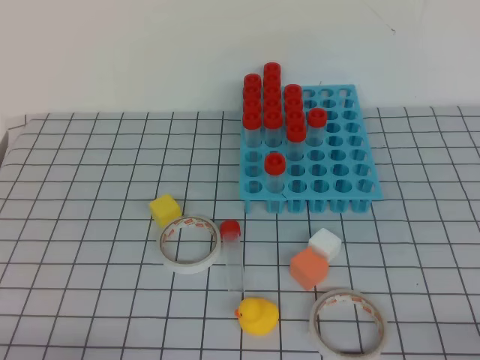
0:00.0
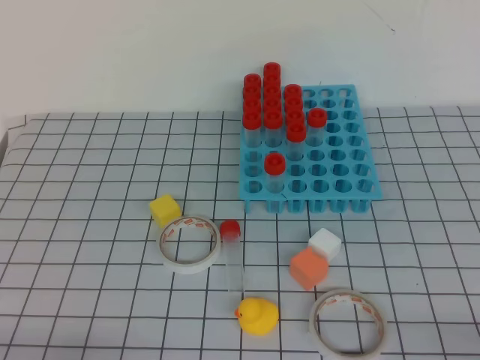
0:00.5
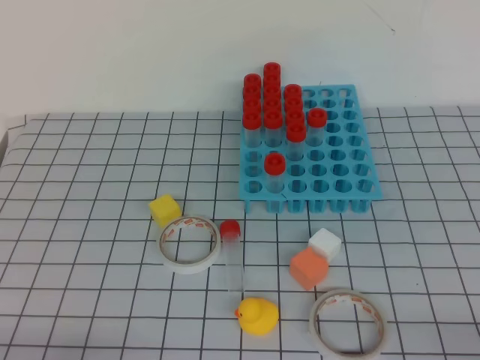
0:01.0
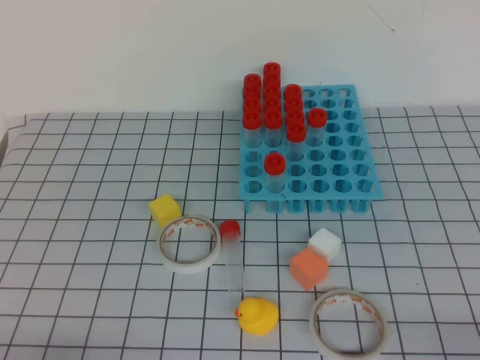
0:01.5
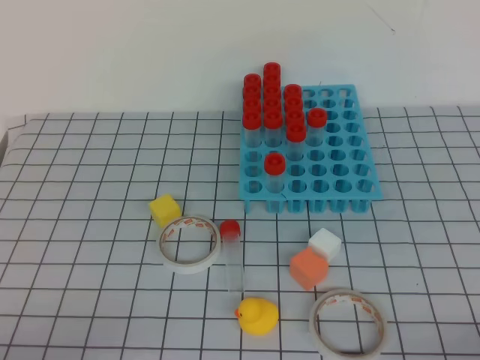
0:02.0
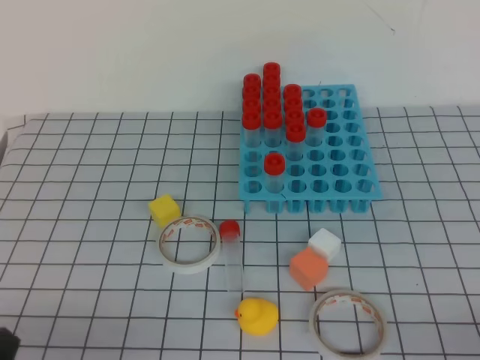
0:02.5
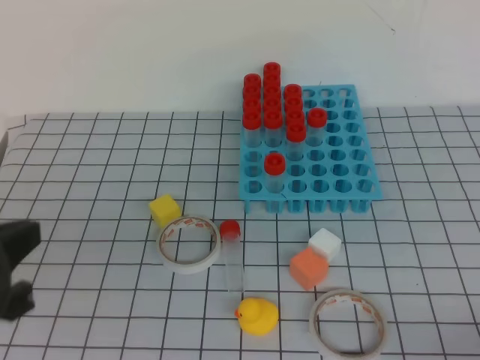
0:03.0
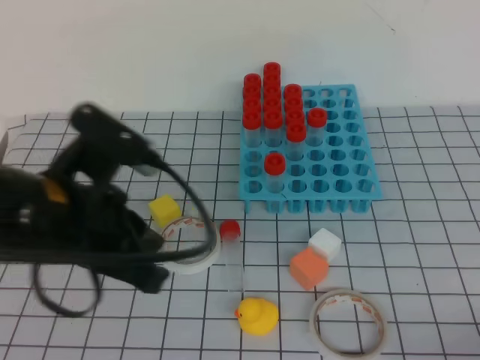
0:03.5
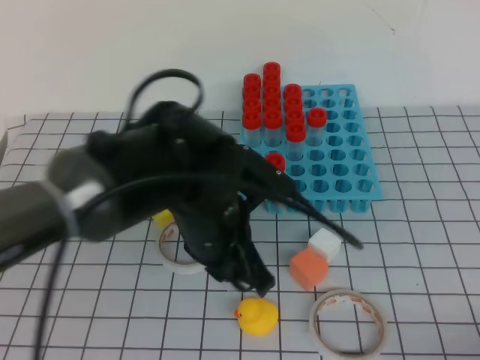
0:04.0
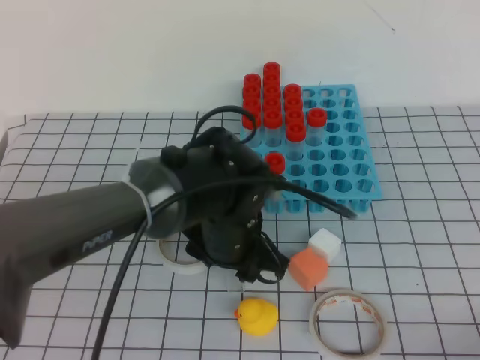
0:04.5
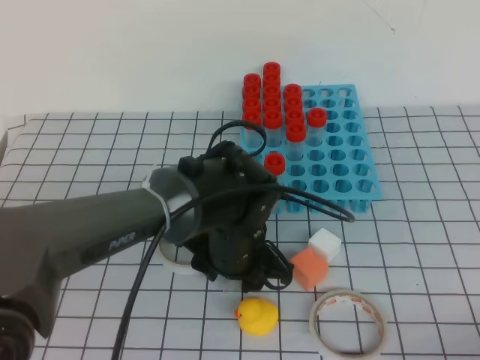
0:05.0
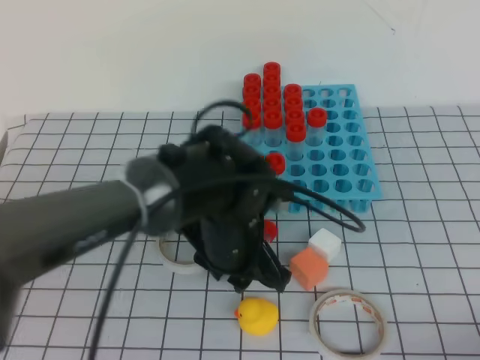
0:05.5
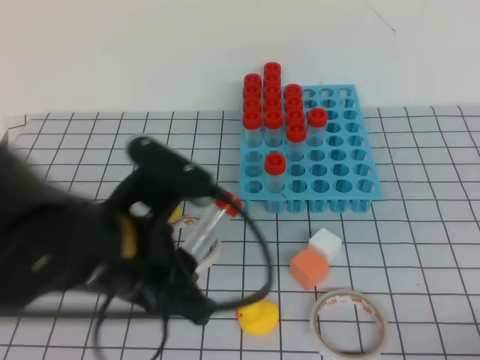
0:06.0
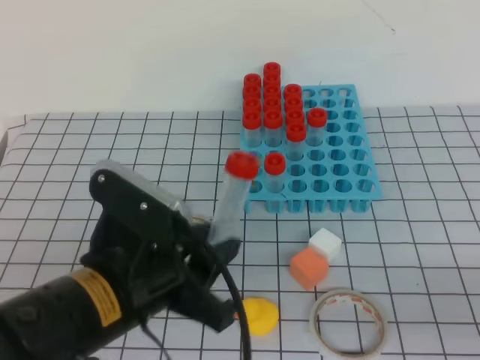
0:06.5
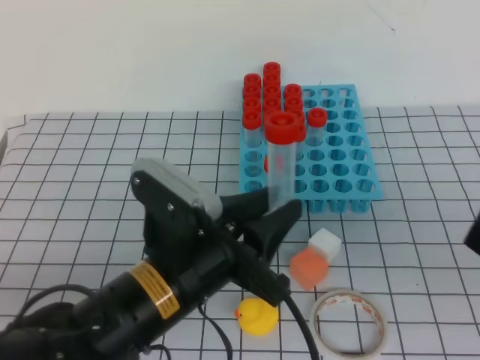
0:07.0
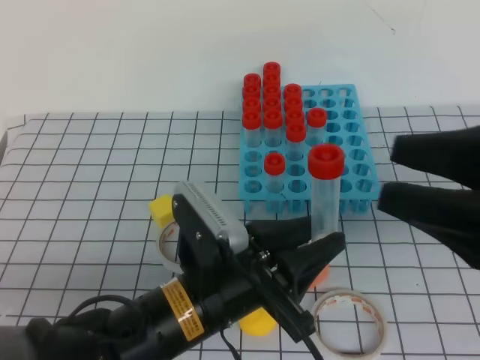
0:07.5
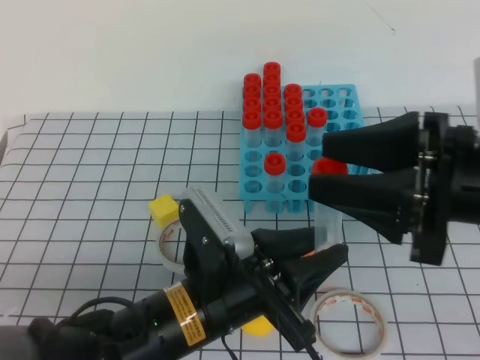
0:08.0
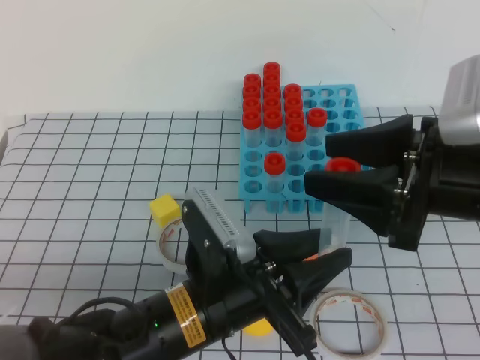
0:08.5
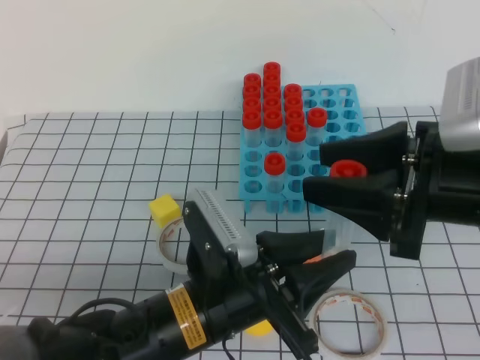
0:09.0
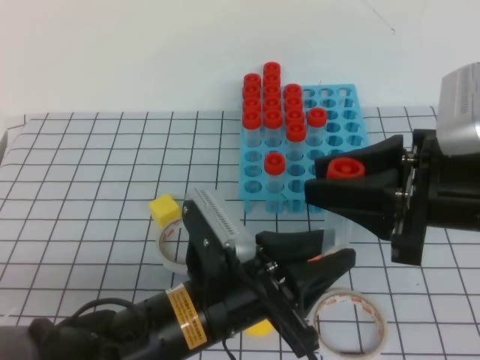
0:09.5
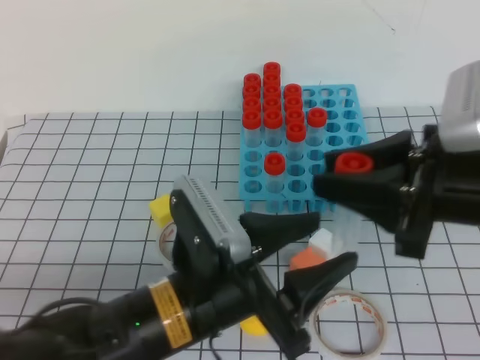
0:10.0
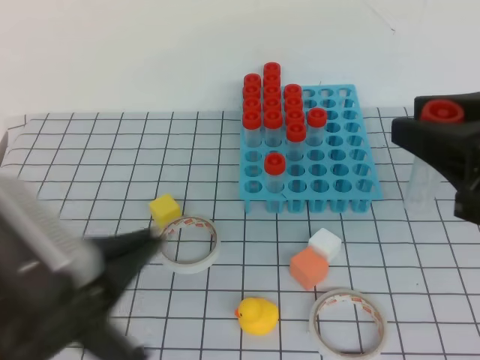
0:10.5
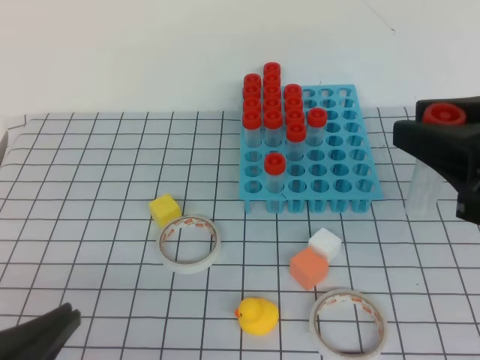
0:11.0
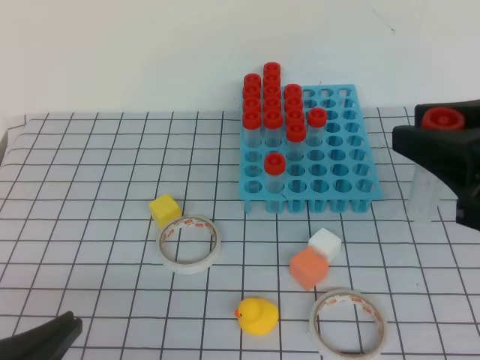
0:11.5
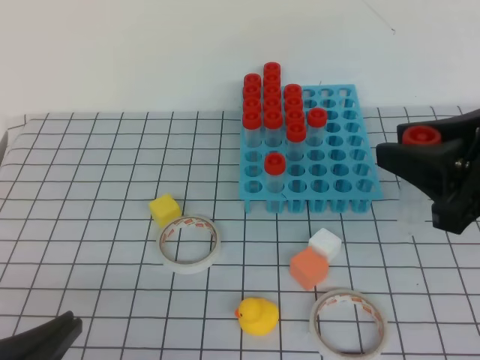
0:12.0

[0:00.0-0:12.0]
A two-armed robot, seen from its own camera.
0:02.0 to 0:04.0: The left gripper moves to the right and forward, some 30 cm.
0:04.0 to 0:06.0: The left gripper travels backward by about 5 cm, and opens, then closes again.
0:06.0 to 0:08.0: The left gripper goes roughly 10 cm downward. The right gripper goes about 25 cm forward, upward and to the left, and opens up.
0:08.0 to 0:10.0: The right gripper closes up. The left gripper opens.
0:10.0 to 0:12.0: The left gripper heads to the left and backward, covering approximately 20 cm, and closes its fingers.

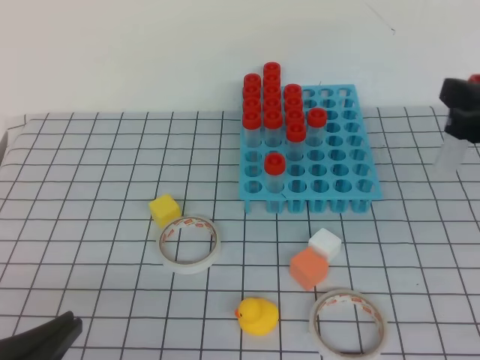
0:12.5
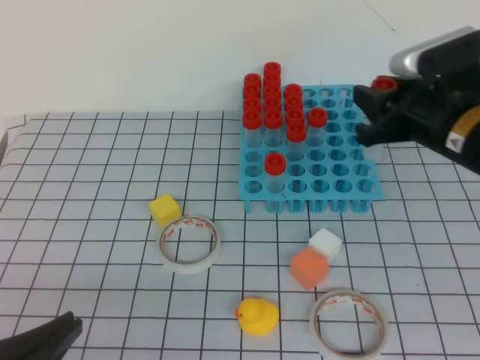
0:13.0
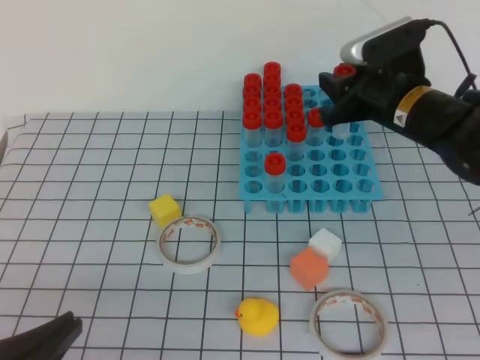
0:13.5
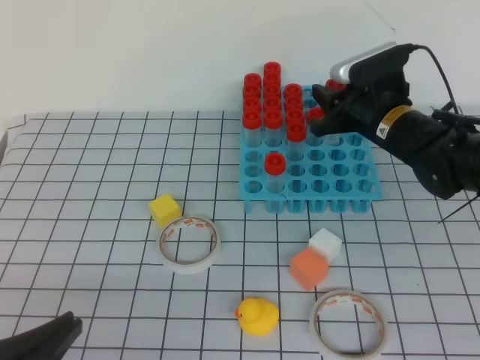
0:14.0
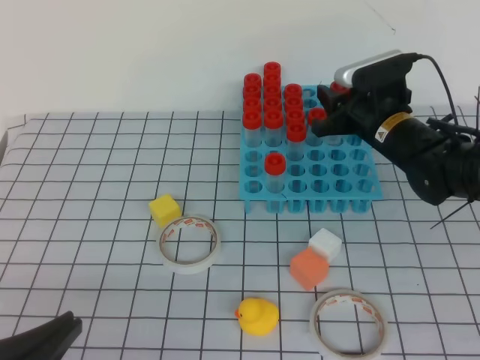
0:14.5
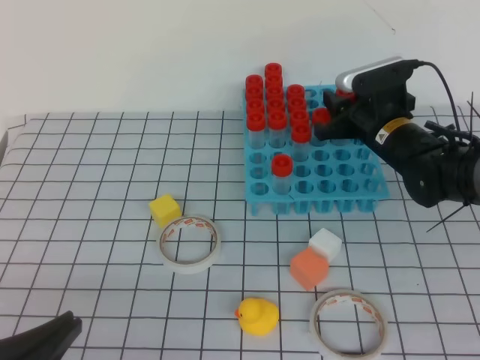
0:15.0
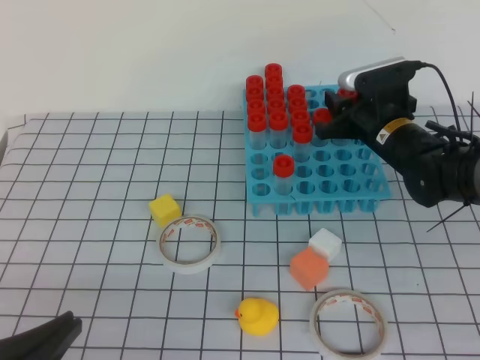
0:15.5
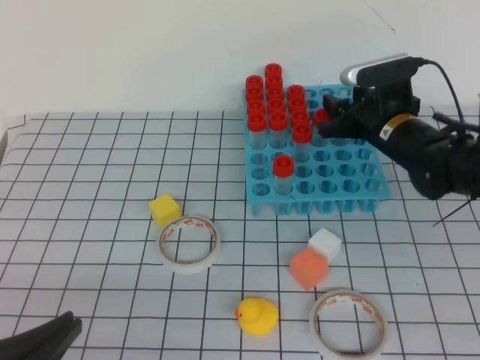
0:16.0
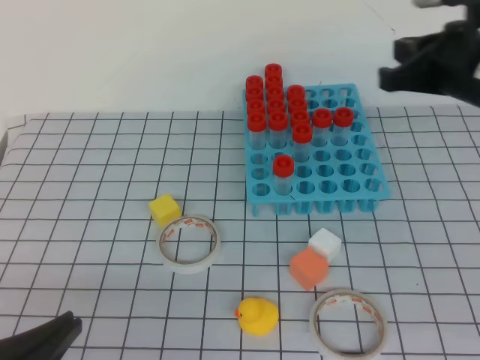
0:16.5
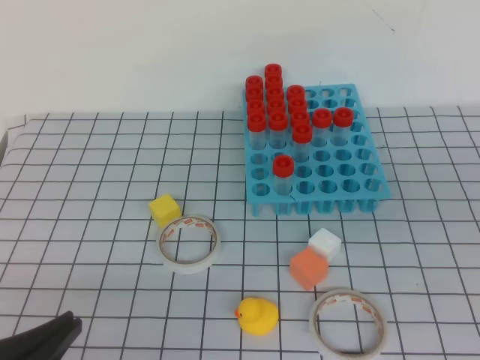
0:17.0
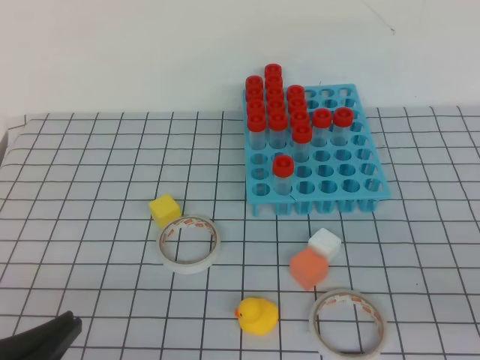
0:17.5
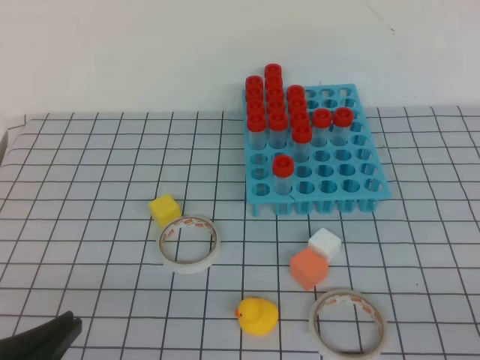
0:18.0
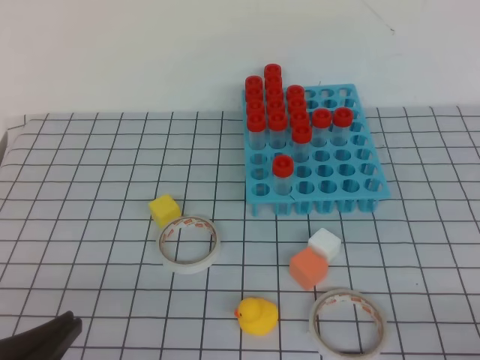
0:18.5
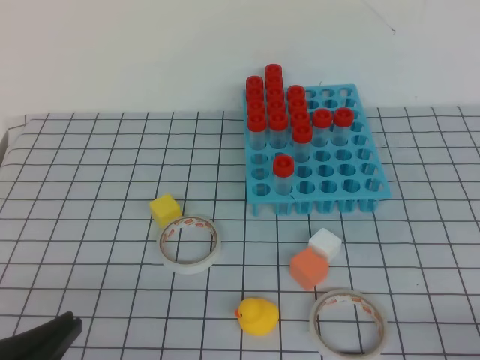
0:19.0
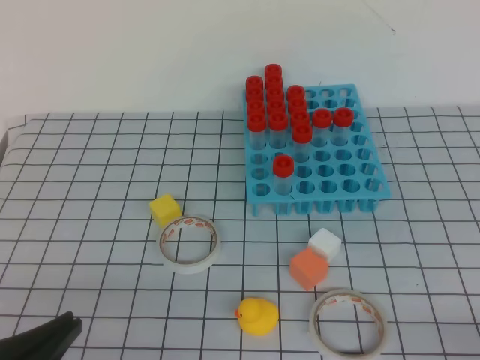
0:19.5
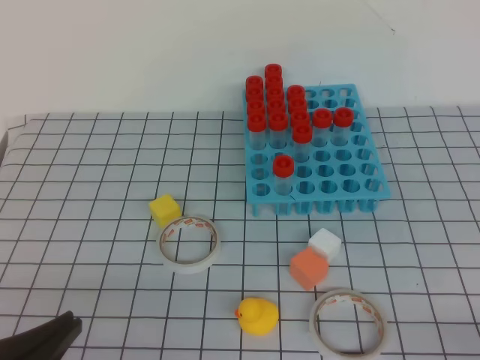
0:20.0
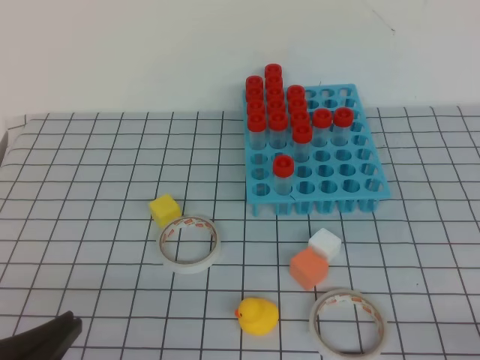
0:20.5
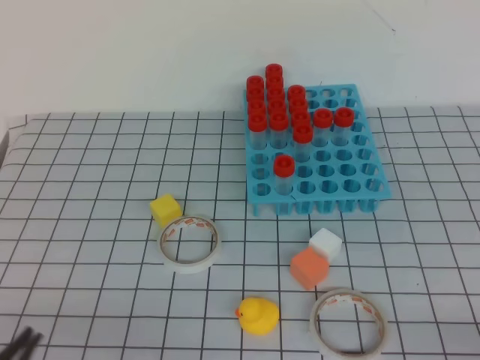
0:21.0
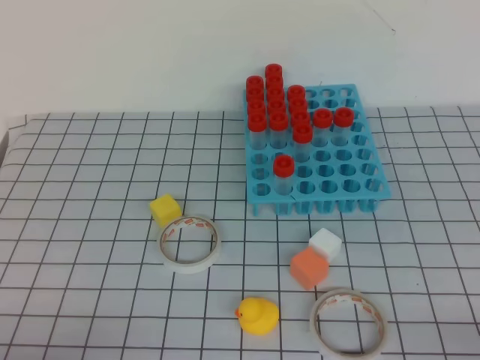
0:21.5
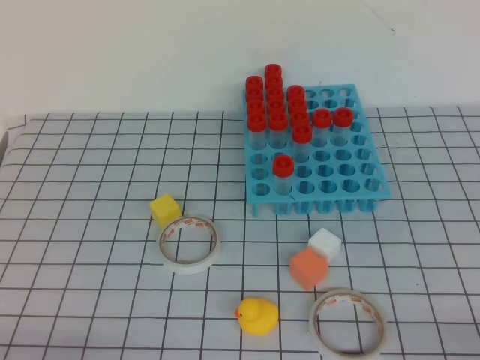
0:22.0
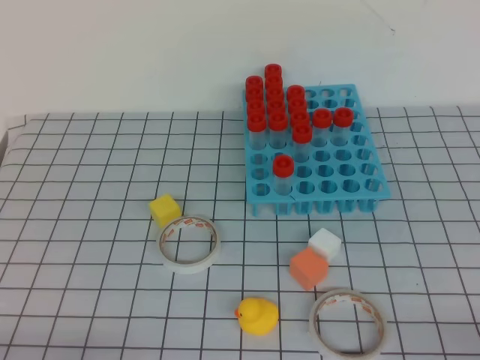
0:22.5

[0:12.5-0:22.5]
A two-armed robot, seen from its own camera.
0:12.5 to 0:14.5: The right gripper moves forward, downward and to the left, roughly 25 cm.
0:14.5 to 0:16.5: The right gripper is displaced upward and backward by approximately 15 cm, and closes its fingers.
0:16.5 to 0:18.5: The right gripper travels backward by approximately 30 cm.
0:20.5 to 0:22.5: The left gripper shifts approximately 10 cm downward.

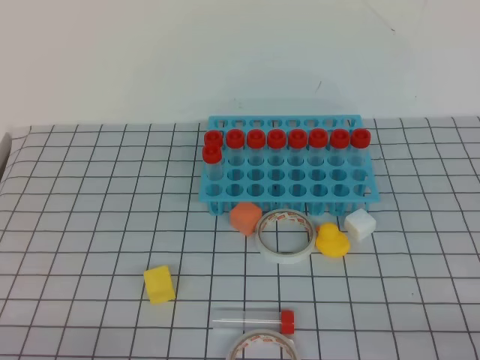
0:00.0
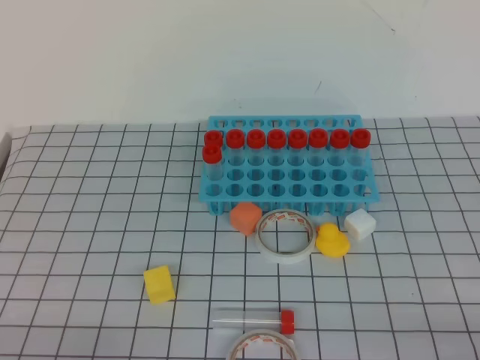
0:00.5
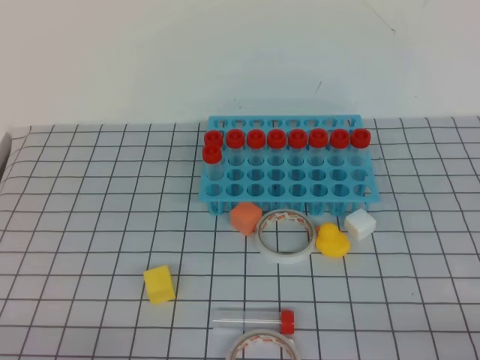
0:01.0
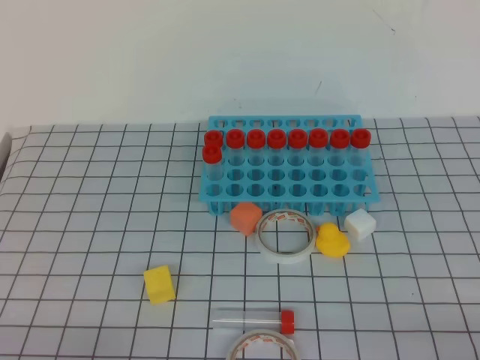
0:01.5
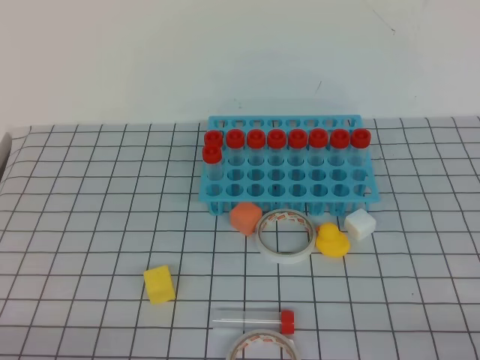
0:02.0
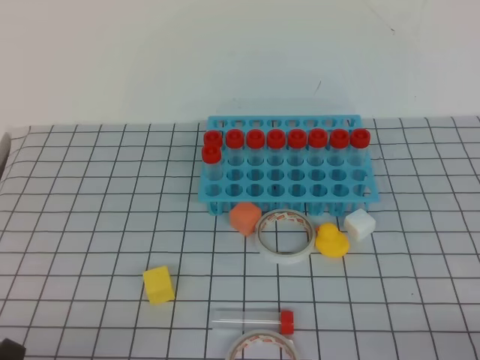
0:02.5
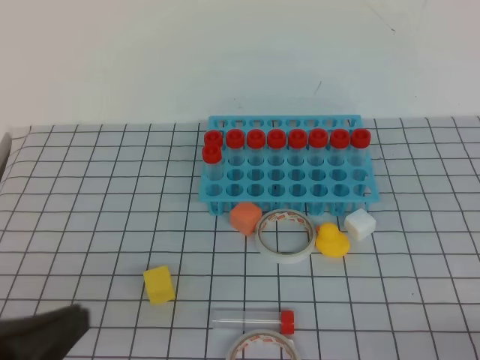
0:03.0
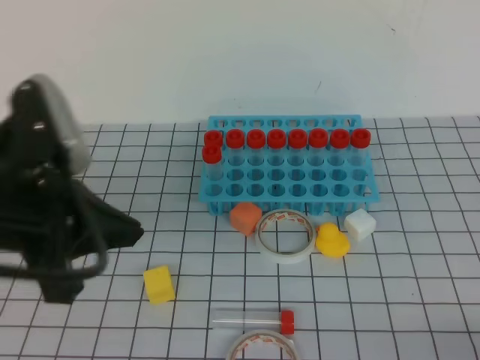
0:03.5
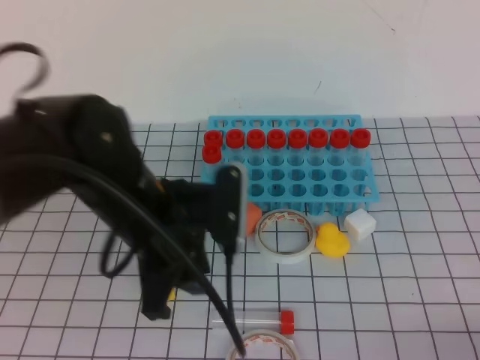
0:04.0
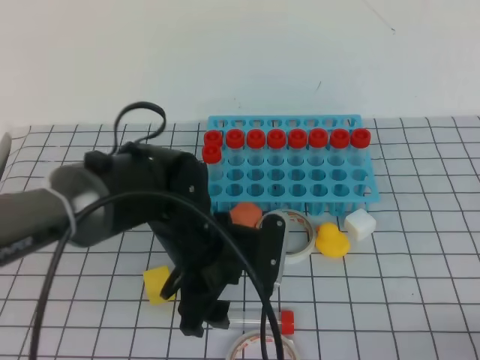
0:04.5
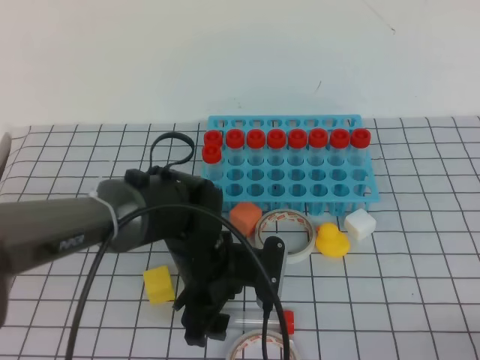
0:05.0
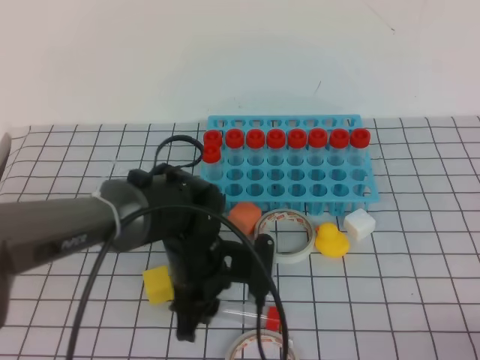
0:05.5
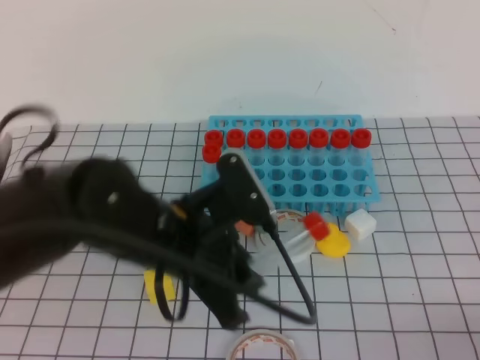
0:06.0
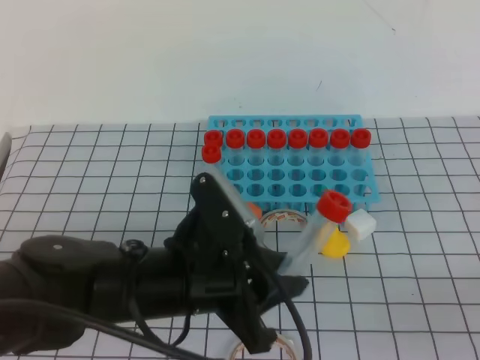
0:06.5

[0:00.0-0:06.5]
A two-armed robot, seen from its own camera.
0:02.0 to 0:04.5: The left gripper goes some 30 cm forward and to the right, and opens.
0:04.5 to 0:06.5: The left gripper heads backward, covering some 5 cm, and closes. The right gripper ends up about 5 cm from where it was.
